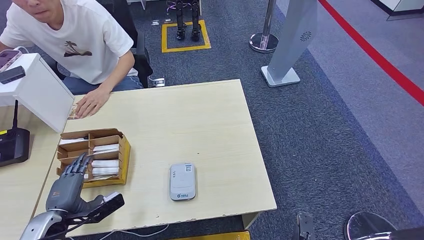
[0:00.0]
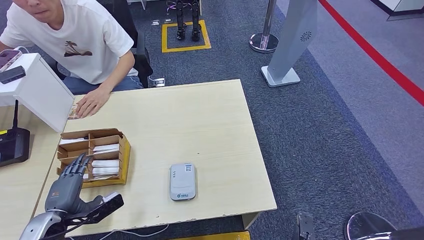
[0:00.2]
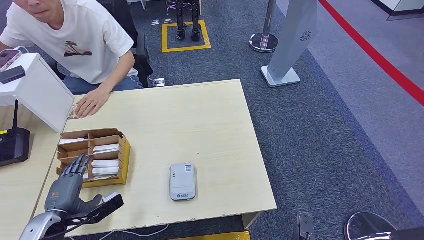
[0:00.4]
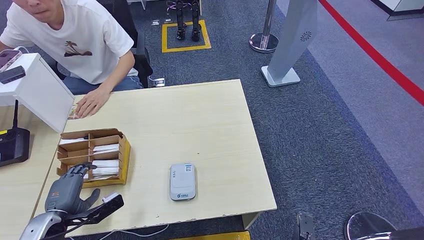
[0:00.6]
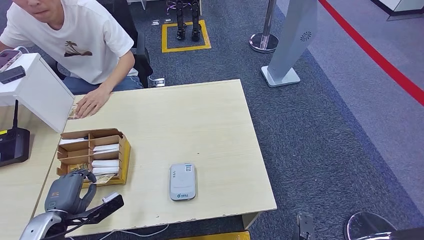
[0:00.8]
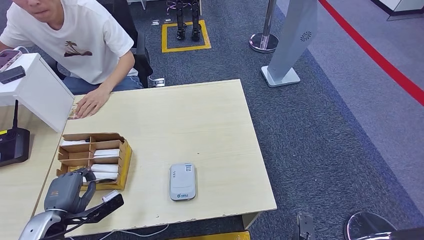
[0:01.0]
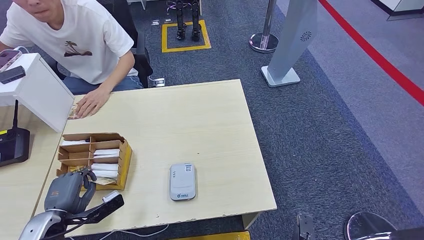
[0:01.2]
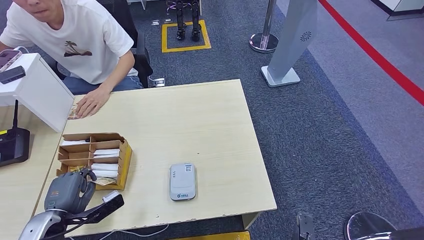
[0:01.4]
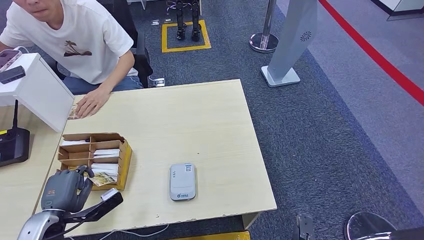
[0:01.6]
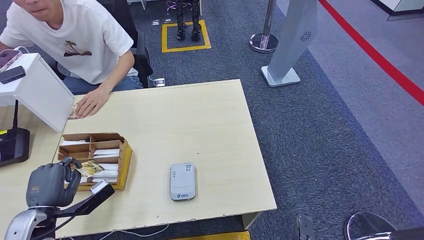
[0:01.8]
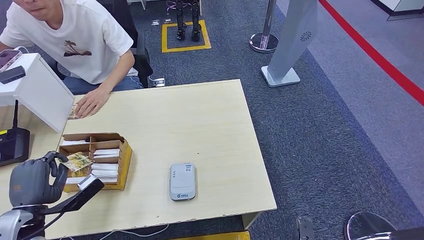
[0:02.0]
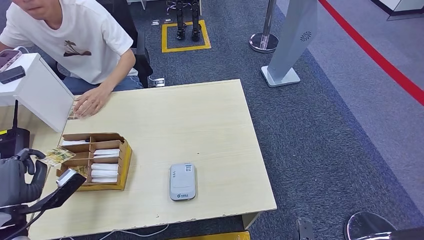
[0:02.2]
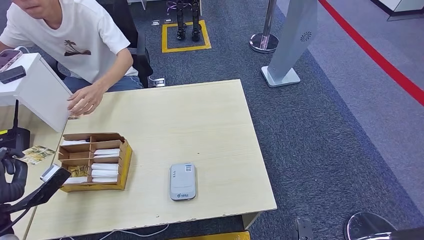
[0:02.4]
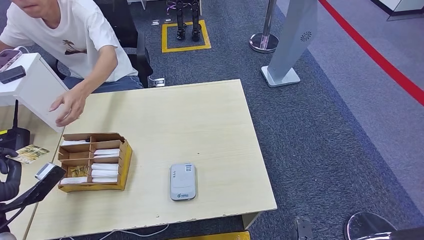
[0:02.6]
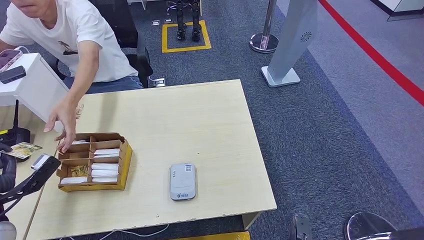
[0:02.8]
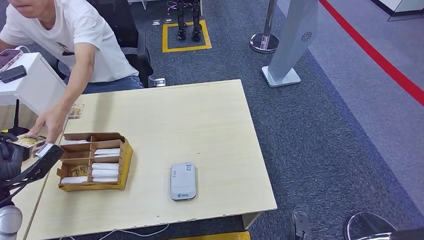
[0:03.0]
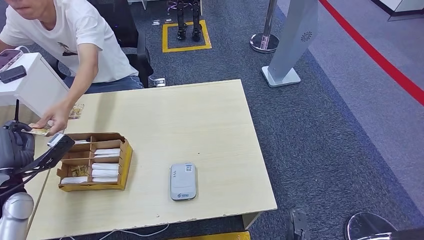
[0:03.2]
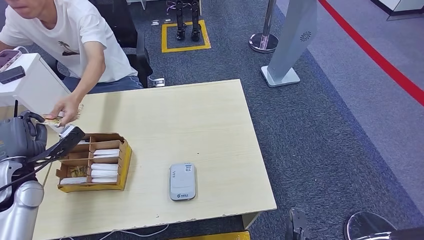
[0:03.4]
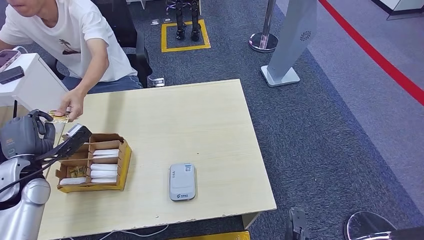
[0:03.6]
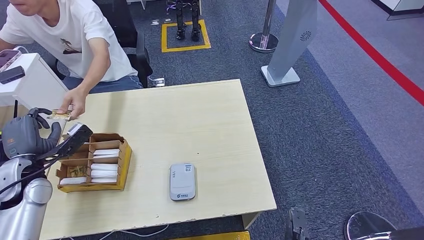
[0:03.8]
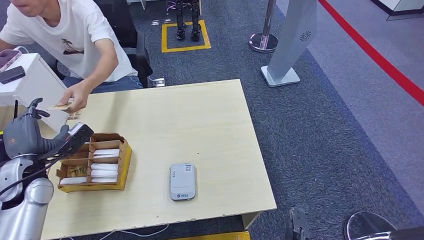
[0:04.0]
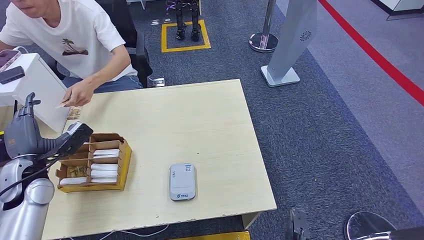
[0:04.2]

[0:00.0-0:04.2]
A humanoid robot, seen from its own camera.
Step, 0:00.0 to 0:02.4: Pick up the room key from the key card box.
Step, 0:02.6 to 0:04.2: Hand the room key to the person.
0:00.0 to 0:01.4: Neither hand changes place.
0:01.4 to 0:02.8: The left hand heads to the left and upward, covering some 10 cm.
0:02.8 to 0:04.2: The left hand moves forward and to the right, approximately 10 cm.
